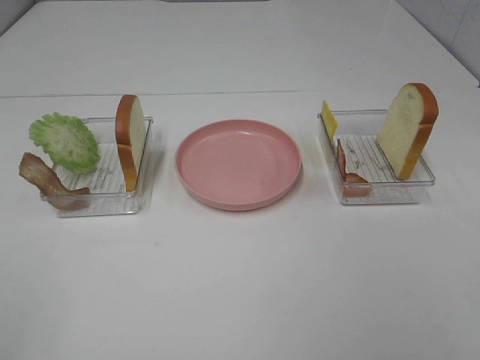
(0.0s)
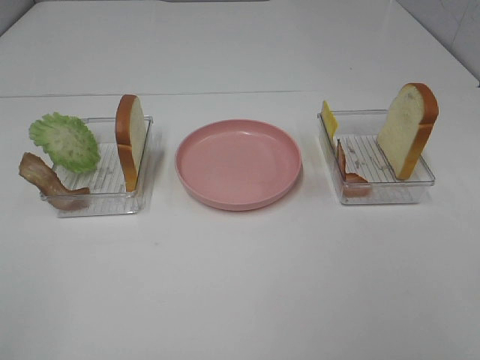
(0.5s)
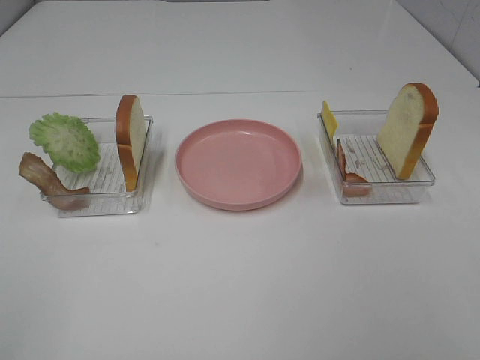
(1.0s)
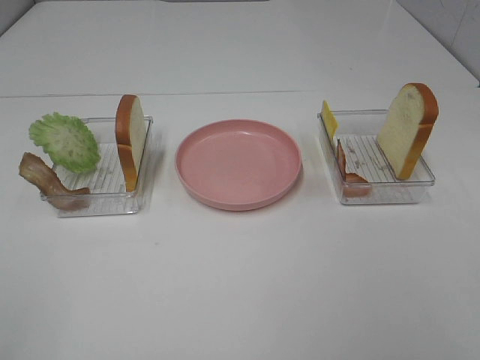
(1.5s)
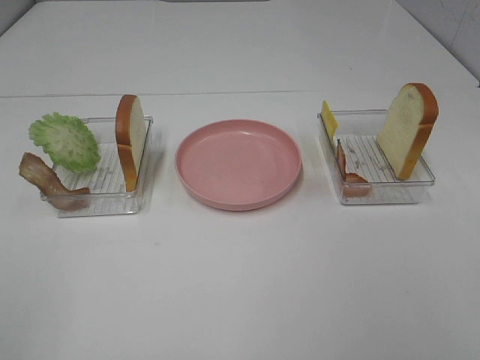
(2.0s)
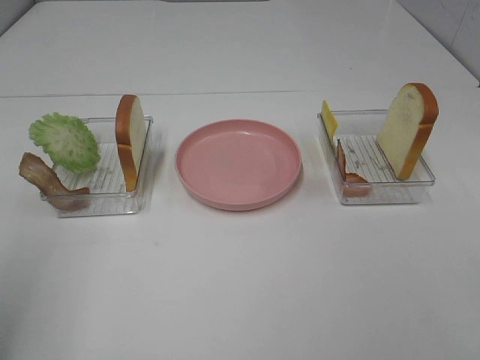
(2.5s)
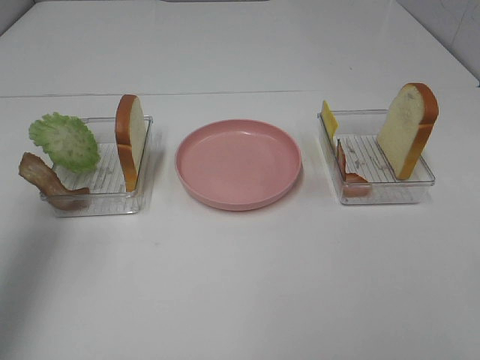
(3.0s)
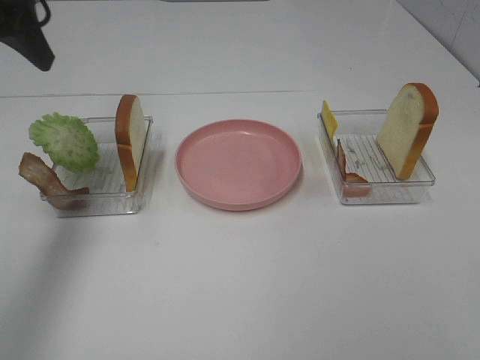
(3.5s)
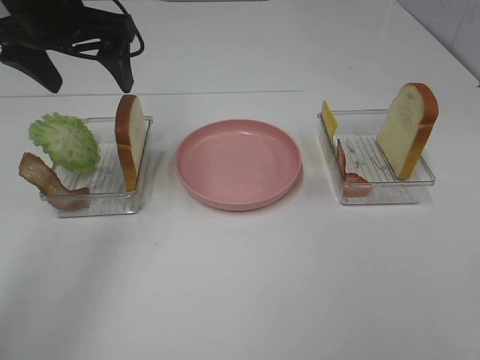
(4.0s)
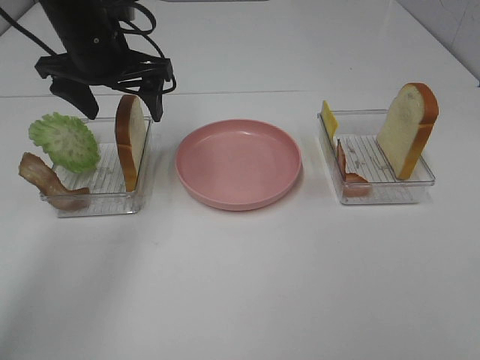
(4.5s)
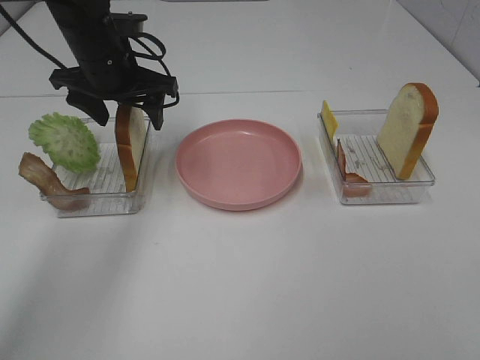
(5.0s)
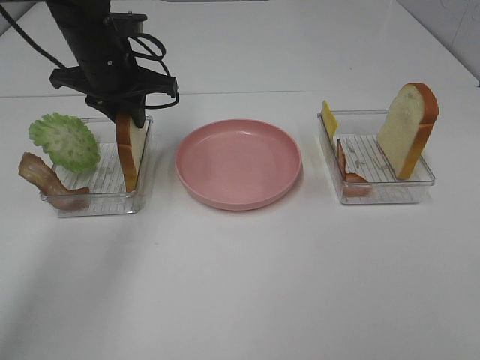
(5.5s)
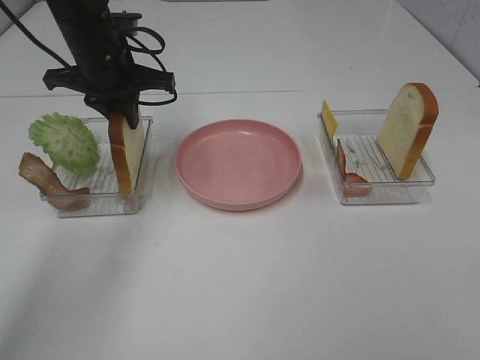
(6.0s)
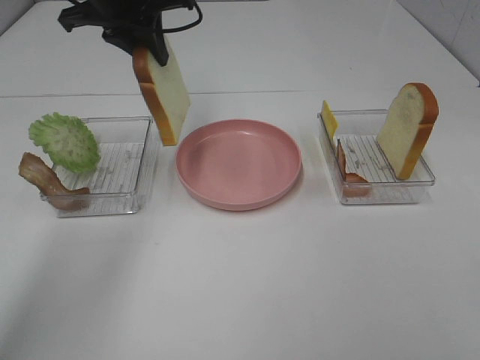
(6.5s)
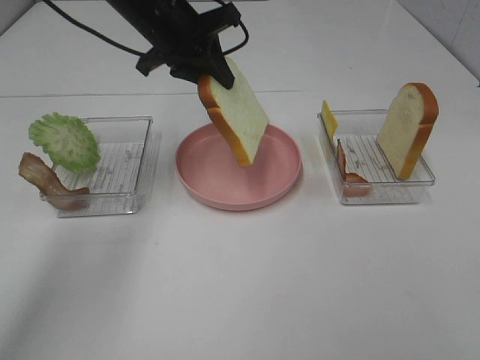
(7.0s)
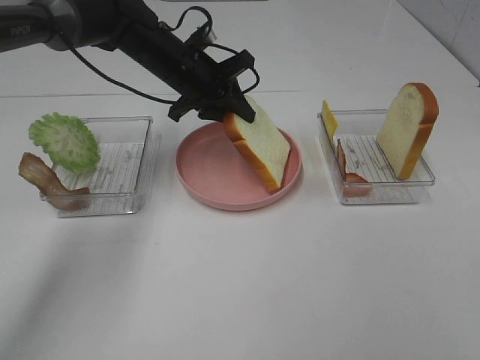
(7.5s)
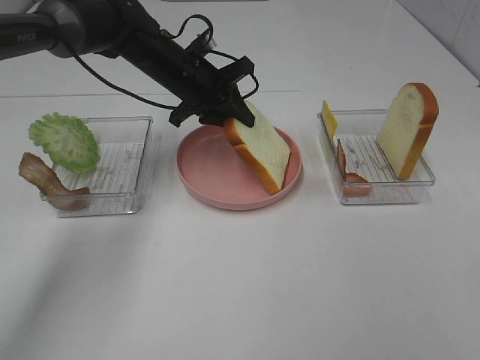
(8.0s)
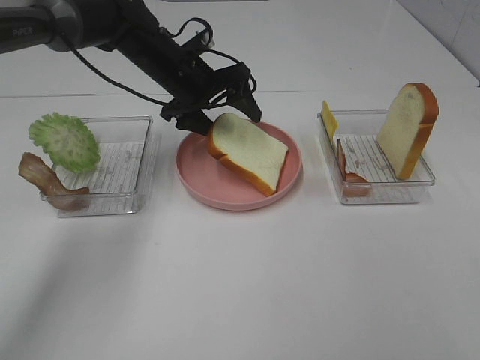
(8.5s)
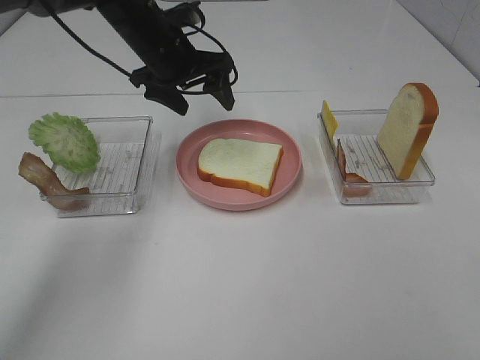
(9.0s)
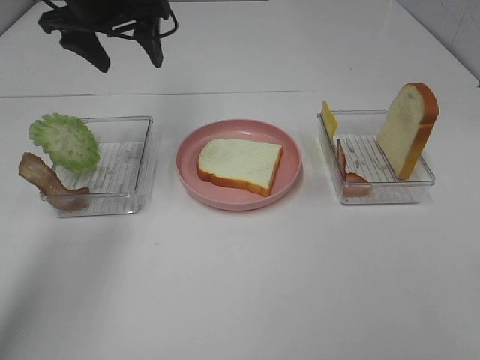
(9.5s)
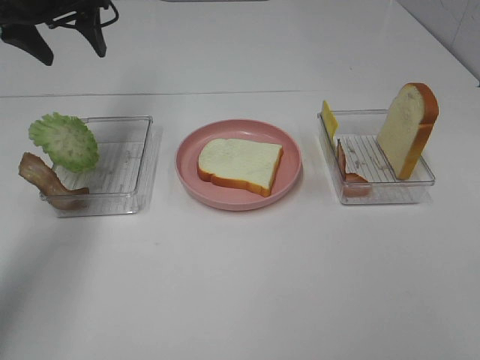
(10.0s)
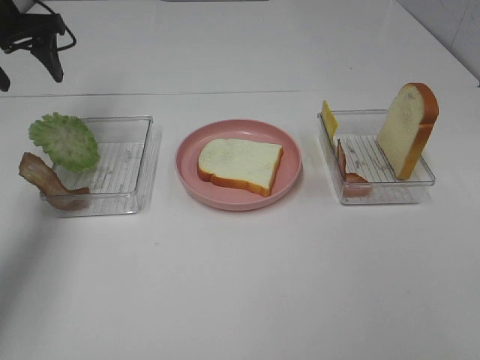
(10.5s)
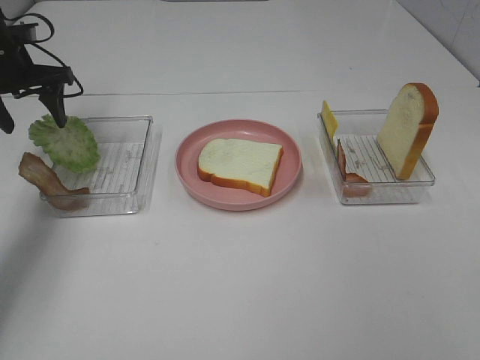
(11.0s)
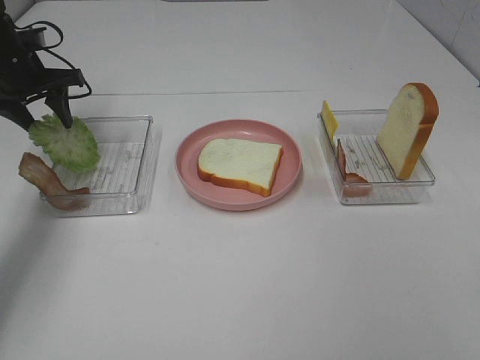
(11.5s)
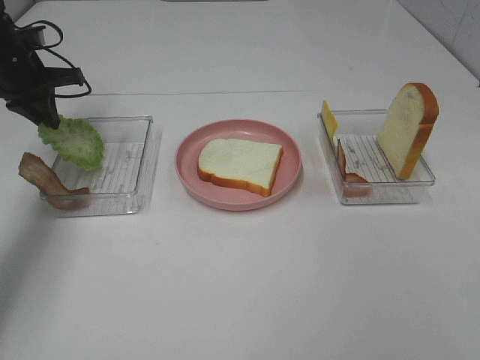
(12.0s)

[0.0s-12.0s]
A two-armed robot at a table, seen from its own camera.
Task of the whole recording: Make sandwiches.
Step, 0.0s to 5.5s: Left hand:grab the bread slice.
Step, 6.0s to 8.5s: Left hand:place the bread slice on the plate.
2.0s to 4.0s: The left gripper moves forward, some 40 cm.
4.0s to 6.0s: The left gripper shifts about 10 cm downward, and closes up.
6.0s to 8.0s: The left gripper is displaced to the right and downward by approximately 10 cm.
8.0s to 10.0s: The left gripper is displaced to the left and upward by about 20 cm, and opens its fingers.
10.0s to 12.0s: The left gripper goes roughly 10 cm downward and to the left, and closes up.

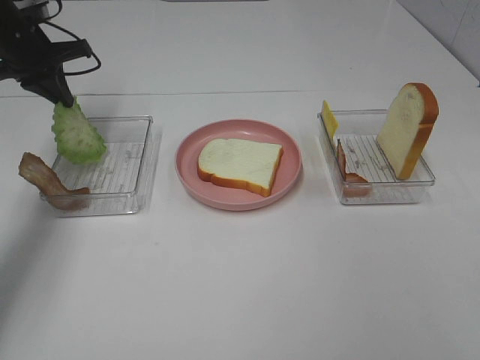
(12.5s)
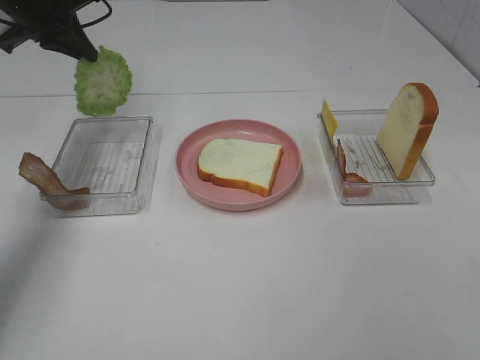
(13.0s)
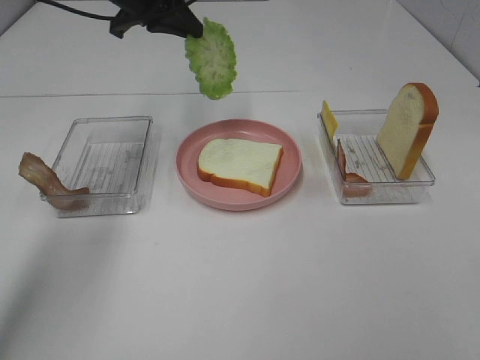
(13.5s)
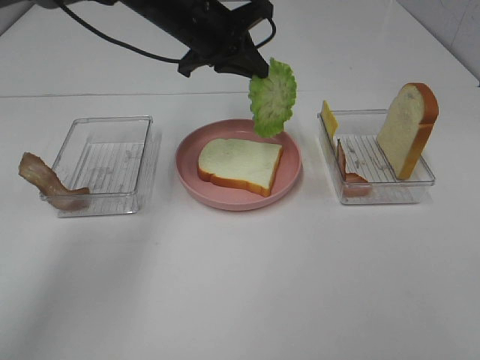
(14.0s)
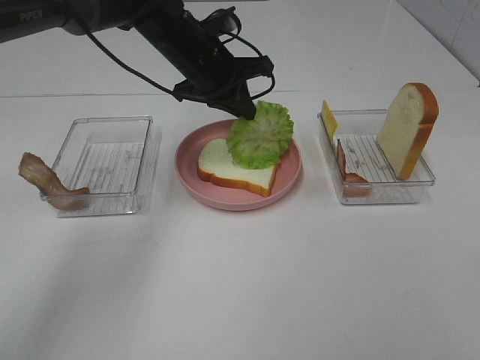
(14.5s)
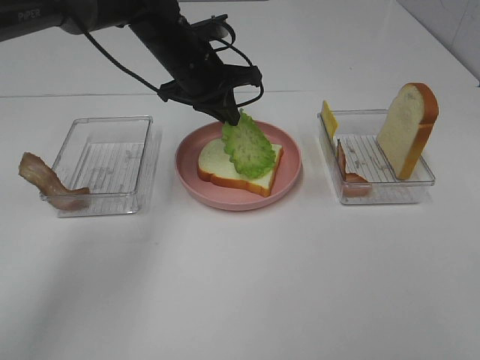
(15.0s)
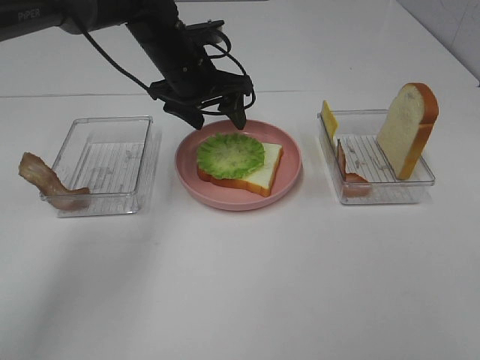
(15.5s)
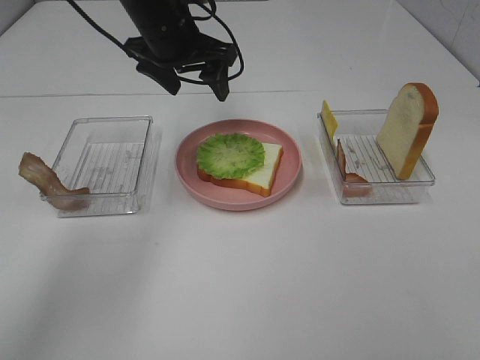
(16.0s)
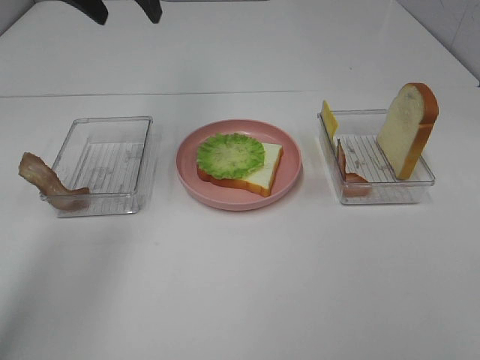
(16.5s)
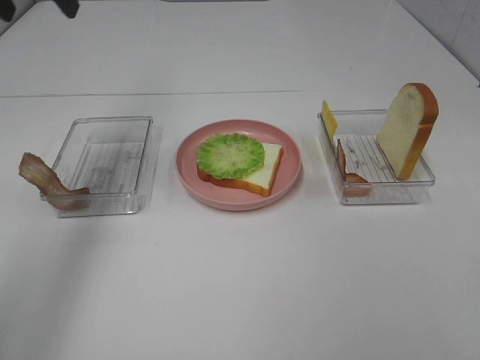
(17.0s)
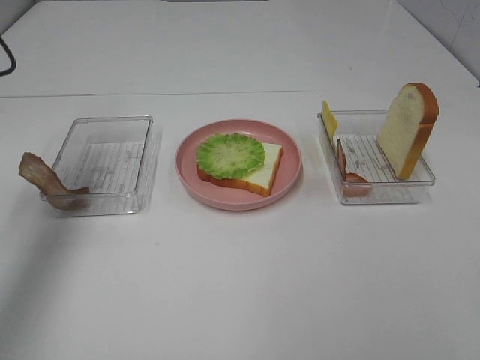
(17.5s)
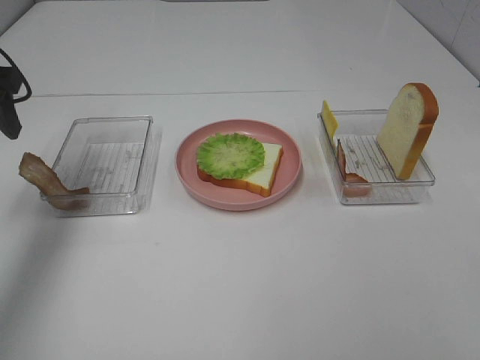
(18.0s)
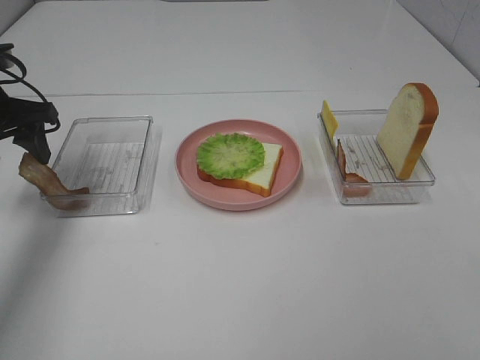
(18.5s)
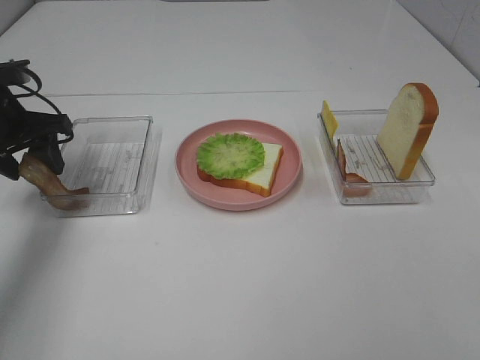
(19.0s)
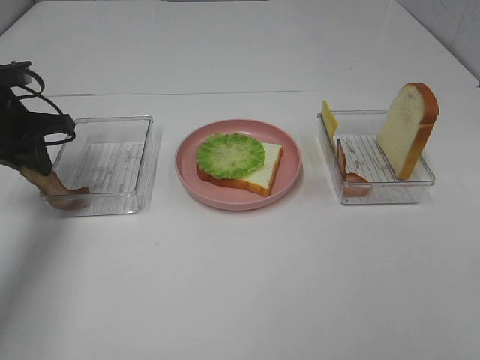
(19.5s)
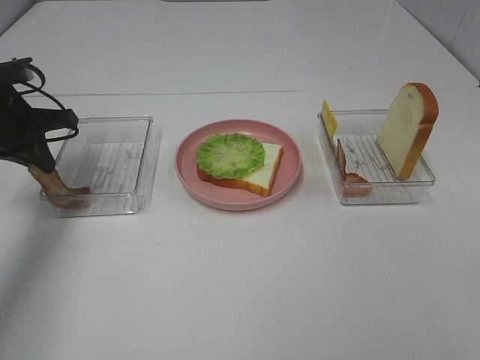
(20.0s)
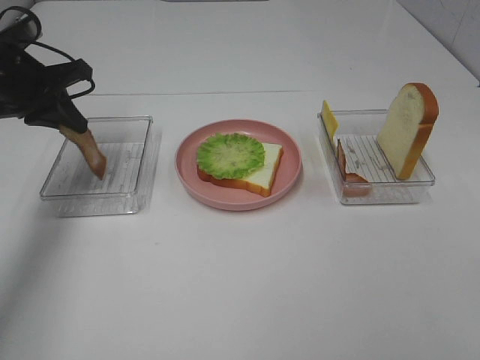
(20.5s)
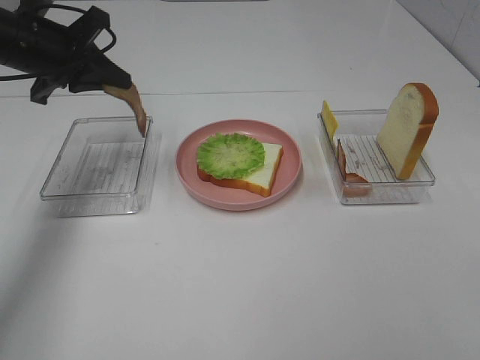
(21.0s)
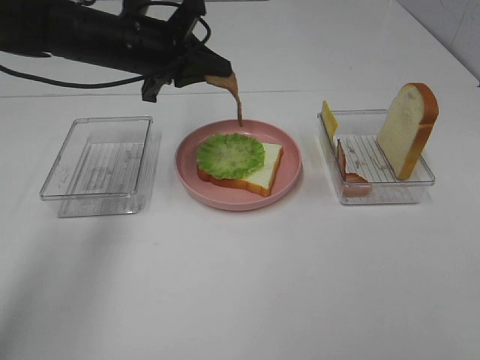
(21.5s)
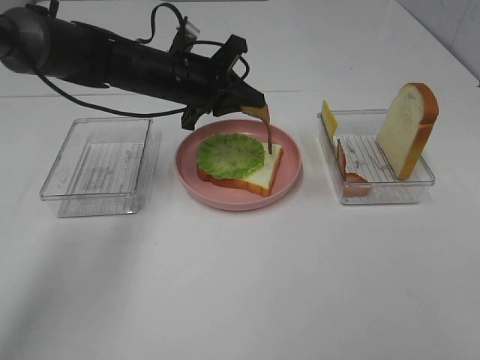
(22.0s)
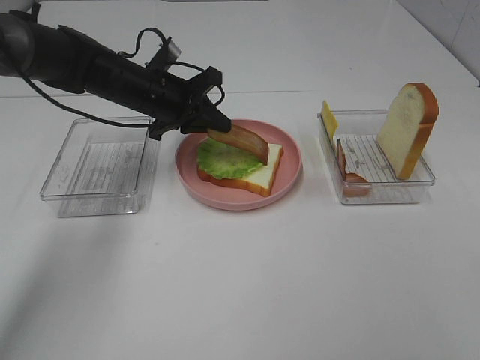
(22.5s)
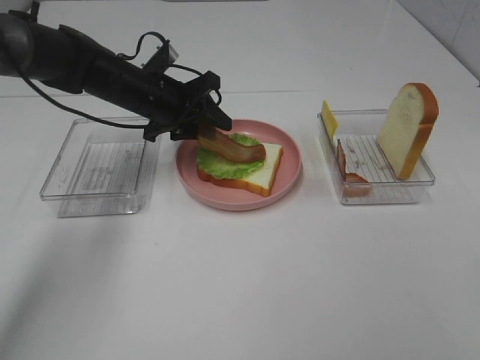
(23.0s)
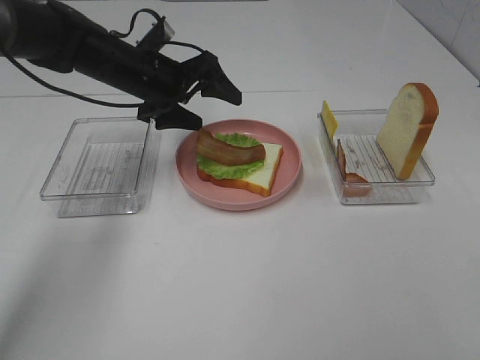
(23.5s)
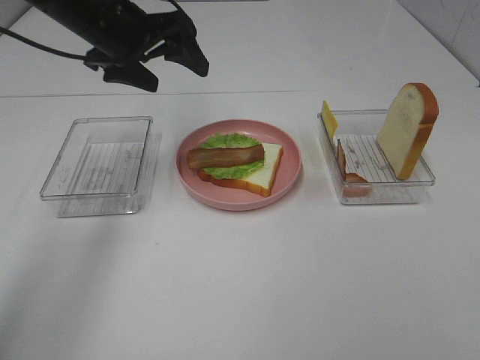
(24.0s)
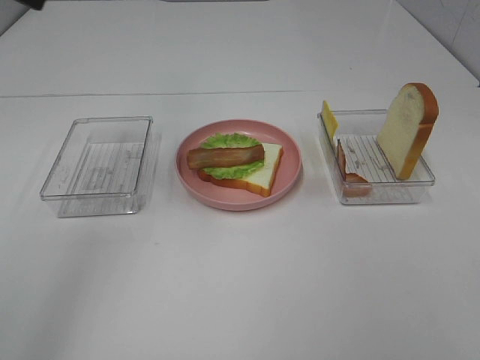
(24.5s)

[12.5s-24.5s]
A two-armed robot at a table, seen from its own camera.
Task of the whole recording: Make sandwiches.
Step, 12.5s to 15.5s: Left hand:place the lettuce slice on the bread slice.
Step, 16.0s to 19.5s: Left hand:grab the bacon.
Step, 20.0s to 23.5s: Left hand:place bacon on lettuce slice.
12.5s to 14.5s: The left gripper heads to the right, covering some 25 cm.
14.5s to 16.5s: The left gripper moves upward and to the left, about 20 cm, and opens its fingers.
16.5s to 18.5s: The left gripper heads downward, to the left and backward, covering about 20 cm.
18.5s to 20.5s: The left gripper closes.
20.5s to 22.5s: The left gripper goes approximately 15 cm to the right and downward.
22.5s to 24.5s: The left gripper is displaced upward and backward by about 30 cm, and opens.

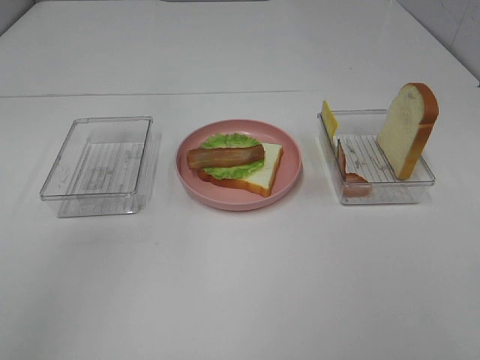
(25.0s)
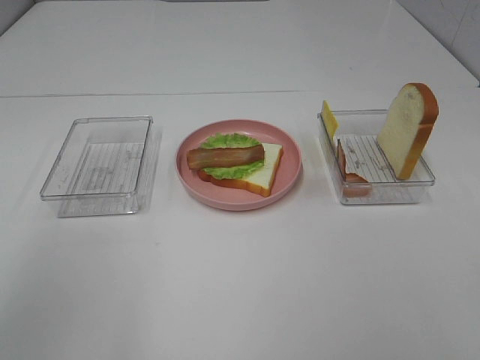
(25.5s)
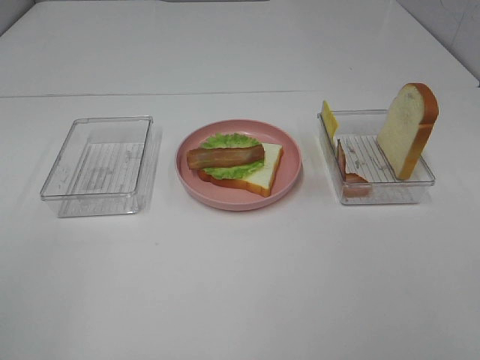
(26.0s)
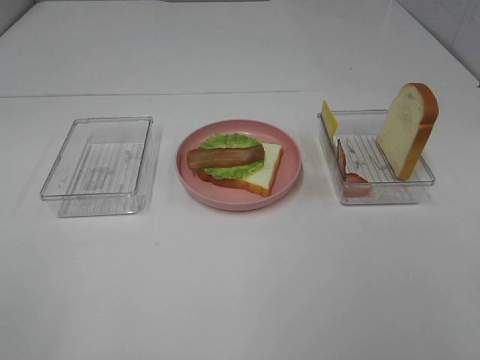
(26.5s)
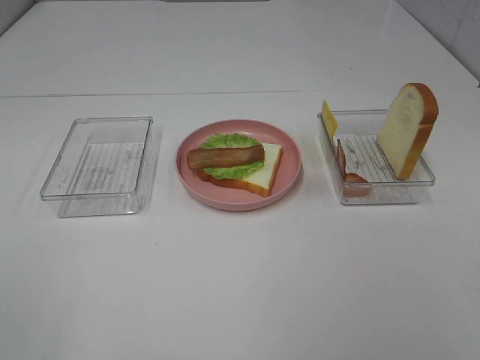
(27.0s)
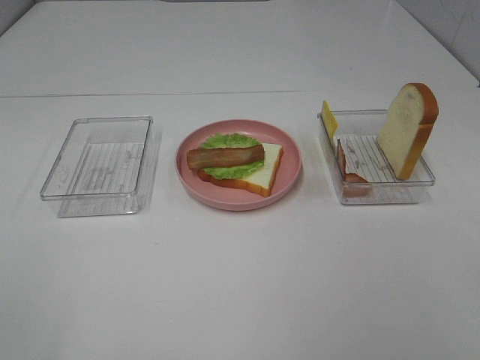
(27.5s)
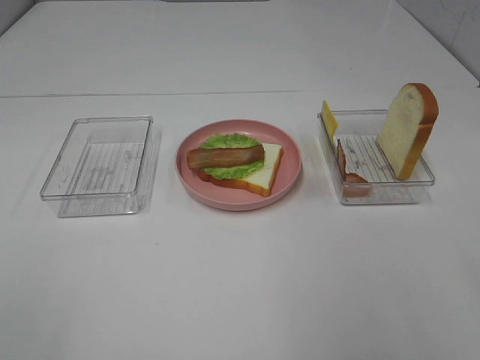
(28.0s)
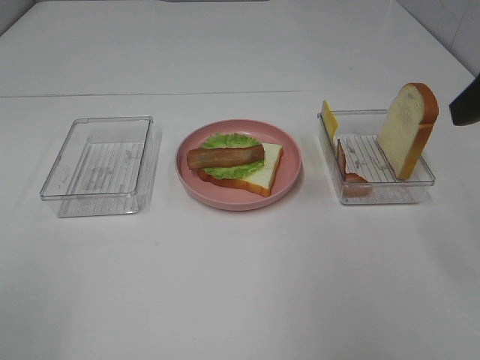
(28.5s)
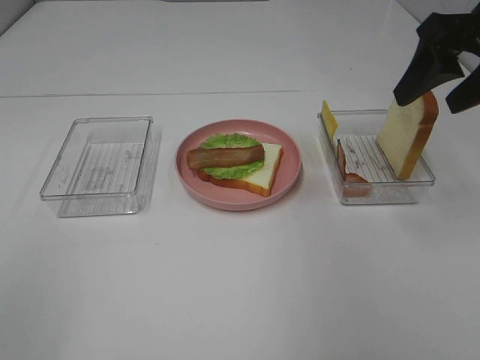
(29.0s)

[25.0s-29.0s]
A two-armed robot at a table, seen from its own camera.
Task of the whole recording: Make sandwiches.
27.0s to 29.0s: The right gripper goes about 30 cm forward.
